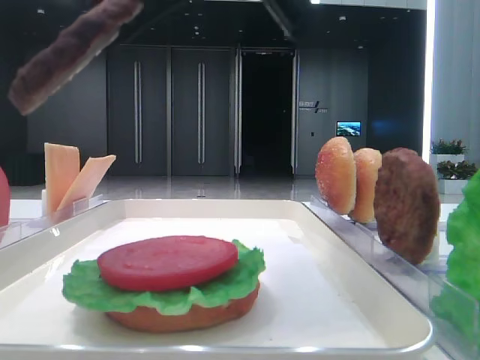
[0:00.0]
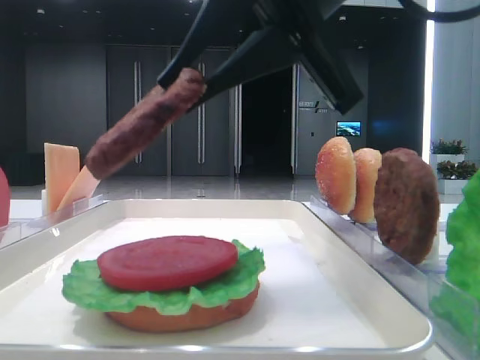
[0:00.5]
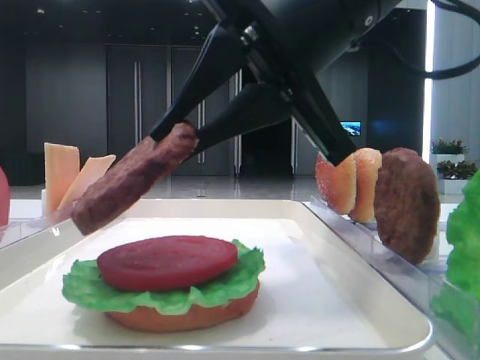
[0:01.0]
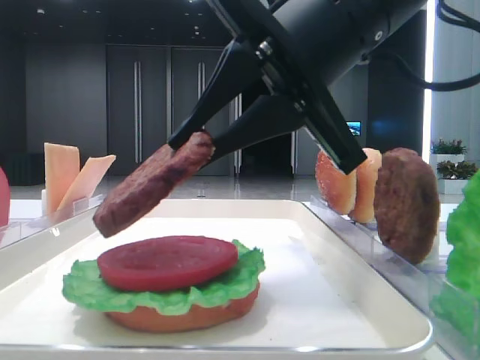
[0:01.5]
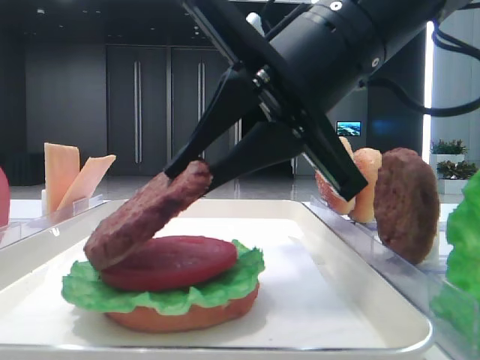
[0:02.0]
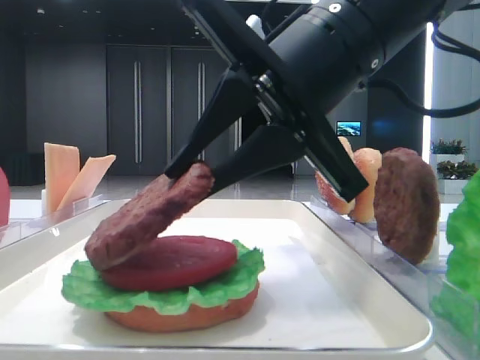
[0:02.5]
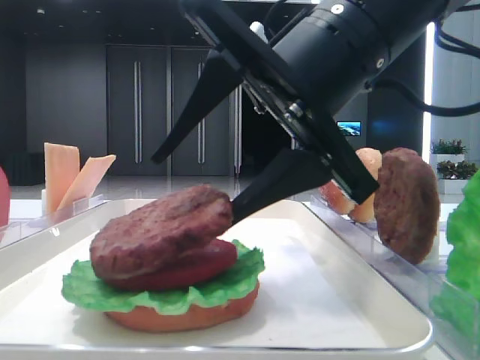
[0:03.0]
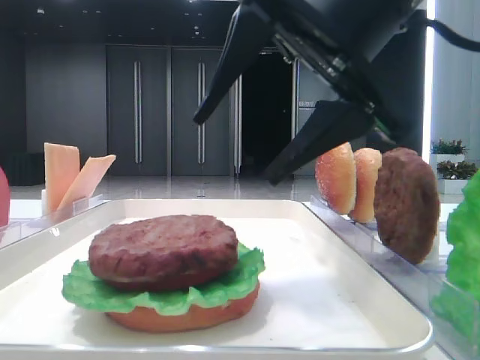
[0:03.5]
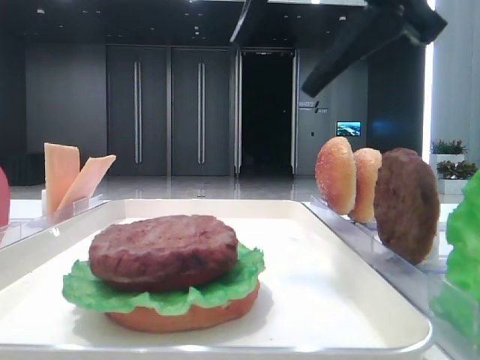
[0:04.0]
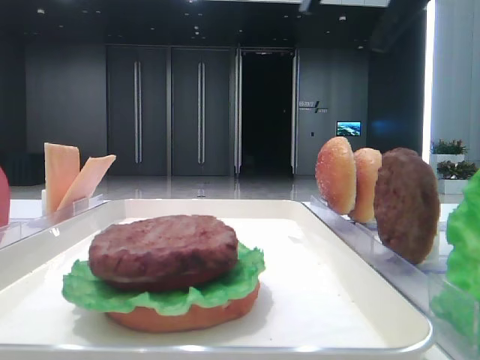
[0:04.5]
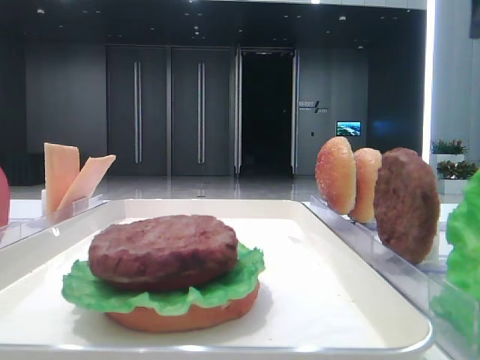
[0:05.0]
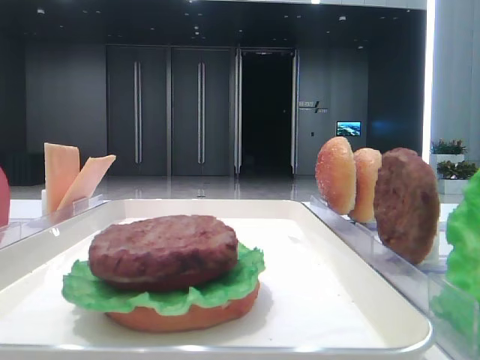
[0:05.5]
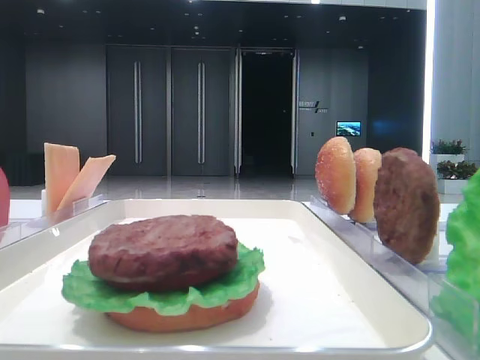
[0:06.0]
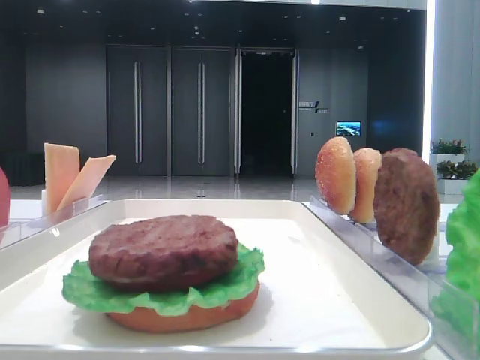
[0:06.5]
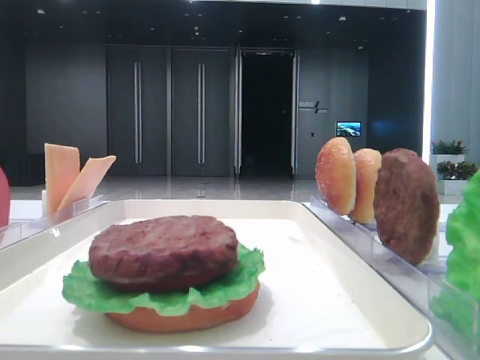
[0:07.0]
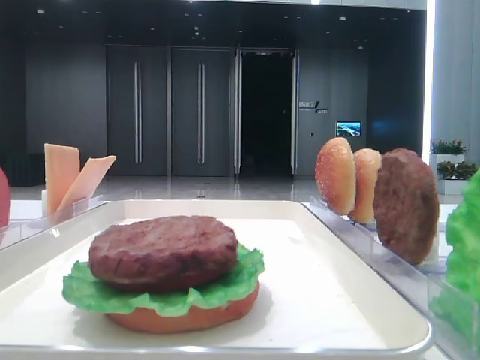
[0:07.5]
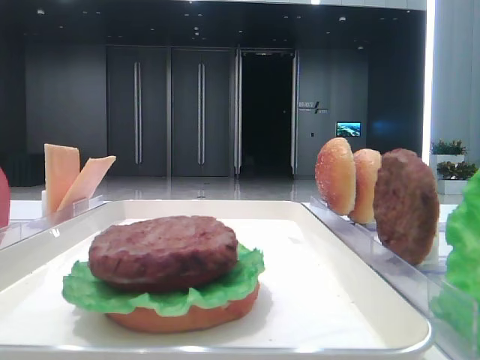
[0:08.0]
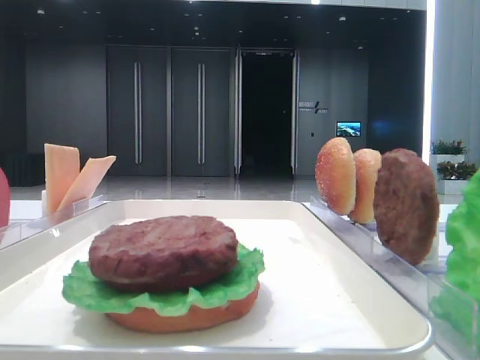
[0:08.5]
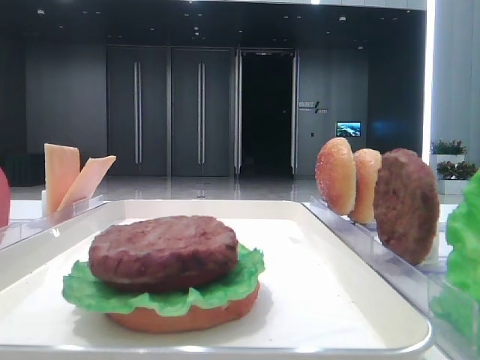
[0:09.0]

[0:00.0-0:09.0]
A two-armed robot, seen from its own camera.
Step, 0:00.0 to 0:03.0: Place the patty on the tomato slice with the right hand.
0:00.0 to 0:02.0: The right gripper goes about 10 cm downward.
0:02.0 to 0:04.5: The right gripper shifts about 15 cm upward and to the right, and opens up.
0:04.5 to 0:07.0: The right gripper is displaced backward and to the right by some 25 cm.
